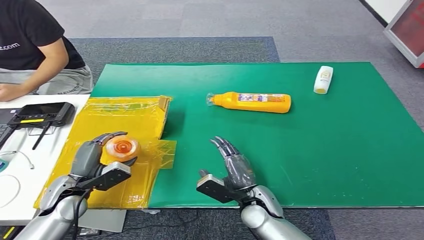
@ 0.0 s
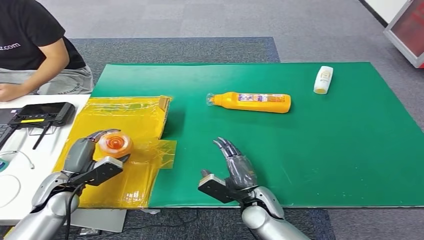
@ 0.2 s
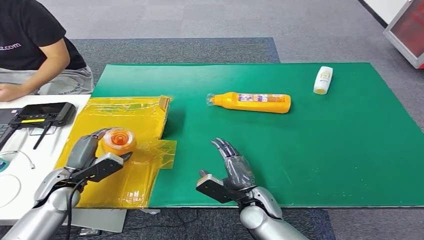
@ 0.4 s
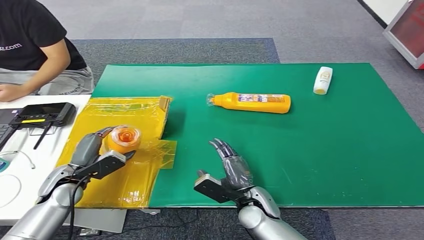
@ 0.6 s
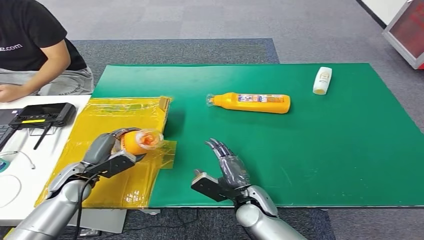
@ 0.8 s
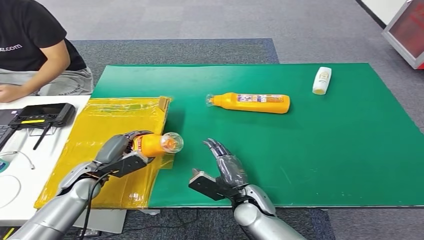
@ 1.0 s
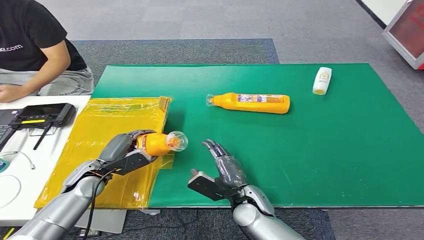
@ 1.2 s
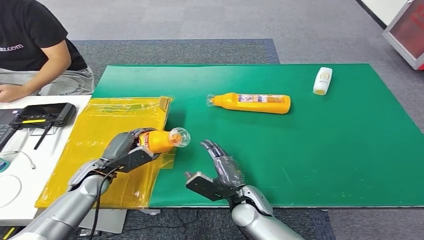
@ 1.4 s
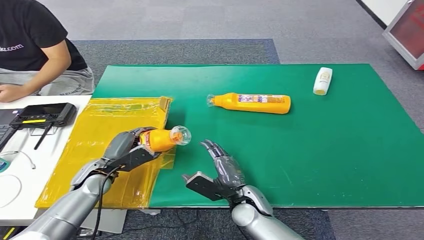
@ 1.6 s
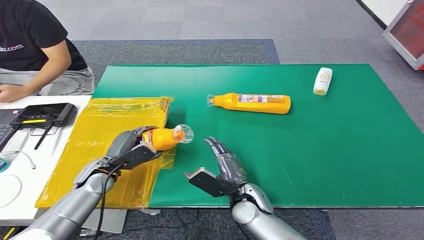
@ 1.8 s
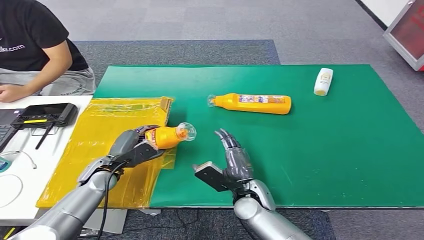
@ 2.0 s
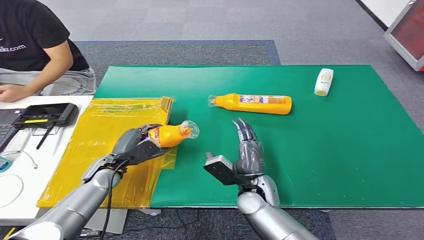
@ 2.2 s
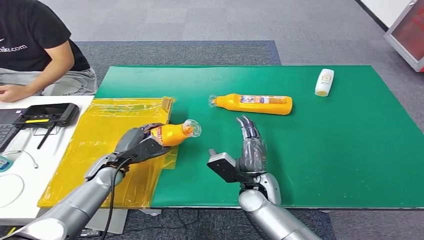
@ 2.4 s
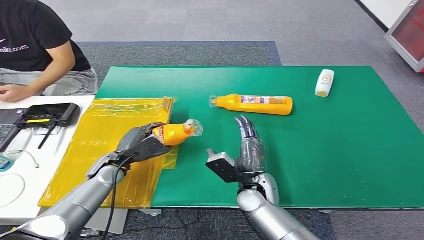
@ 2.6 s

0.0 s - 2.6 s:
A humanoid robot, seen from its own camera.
Step, 0.0 s - 2.6 s: Turn the bottle to the front side.
0.0 s - 1.2 s: The left hand goes approximately 5 cm forward.
